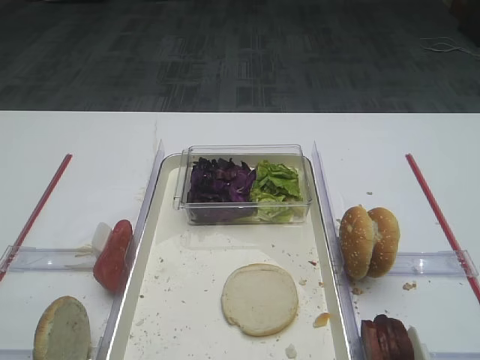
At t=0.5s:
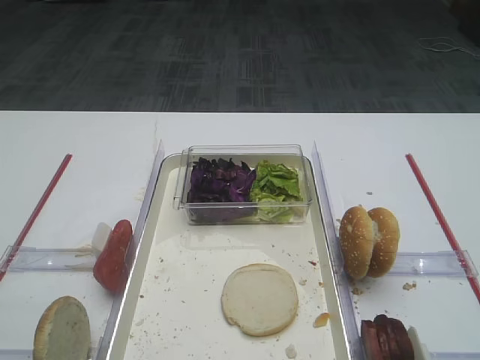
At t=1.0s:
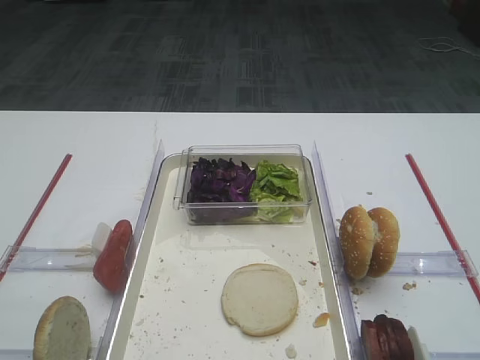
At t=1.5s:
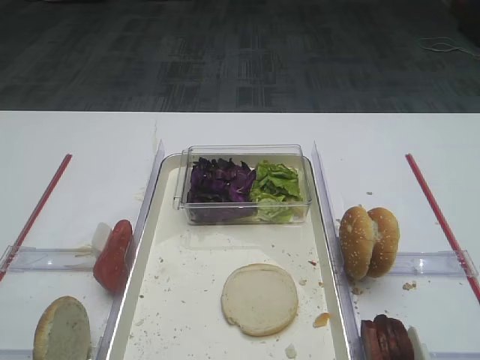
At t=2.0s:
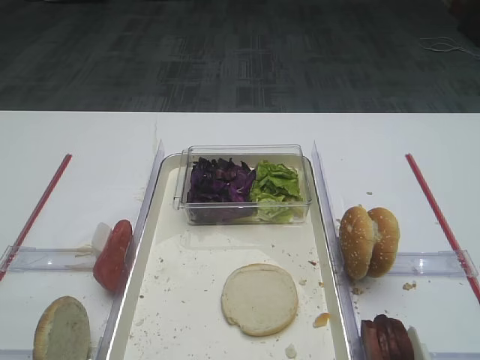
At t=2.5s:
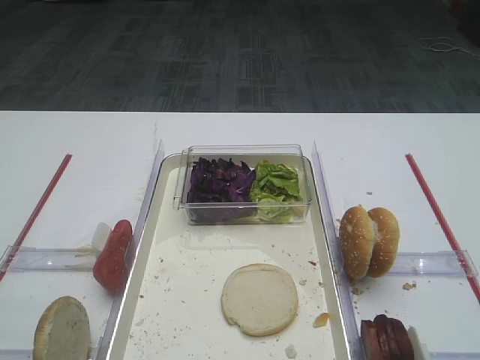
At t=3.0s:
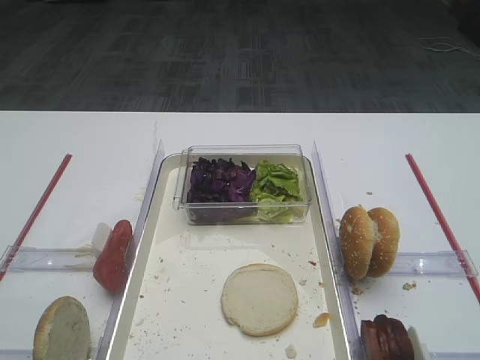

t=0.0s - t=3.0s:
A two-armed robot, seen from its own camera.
t=1.5s - t=3.0s: Both grippers stay about where they are.
